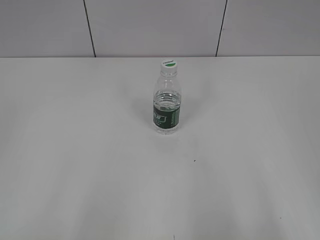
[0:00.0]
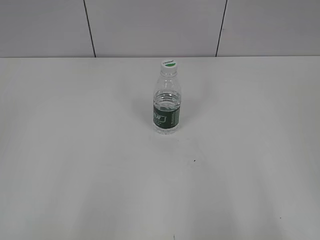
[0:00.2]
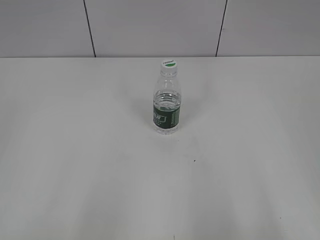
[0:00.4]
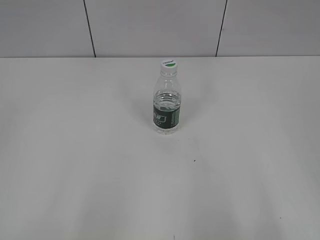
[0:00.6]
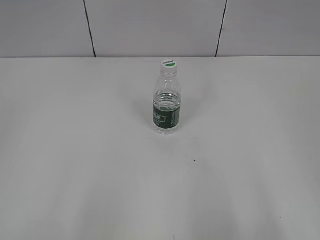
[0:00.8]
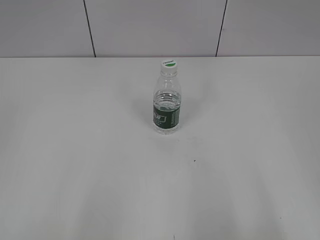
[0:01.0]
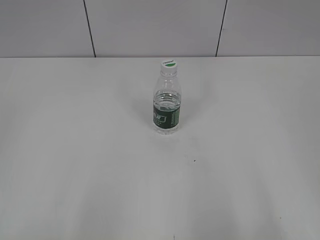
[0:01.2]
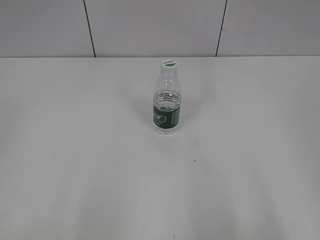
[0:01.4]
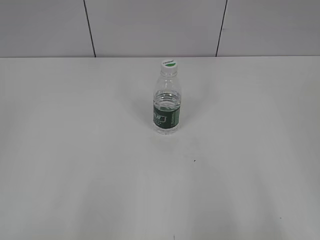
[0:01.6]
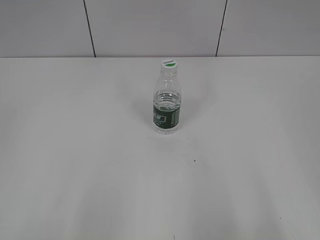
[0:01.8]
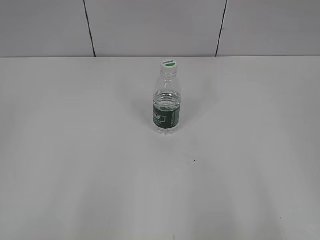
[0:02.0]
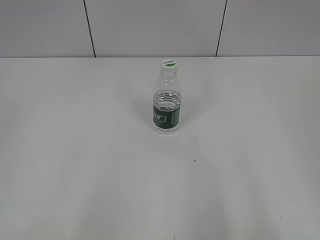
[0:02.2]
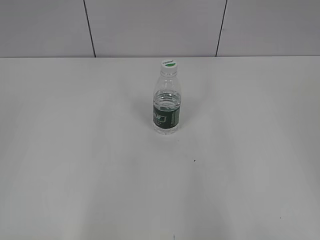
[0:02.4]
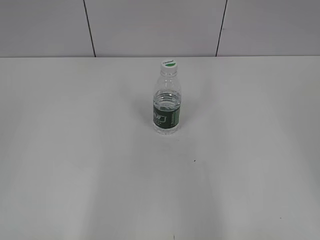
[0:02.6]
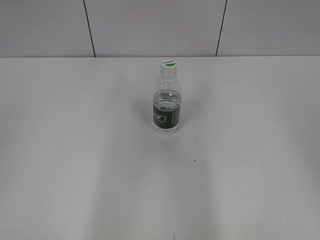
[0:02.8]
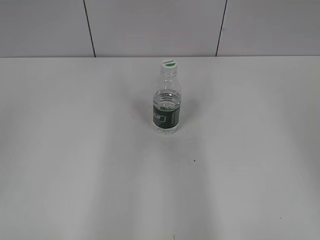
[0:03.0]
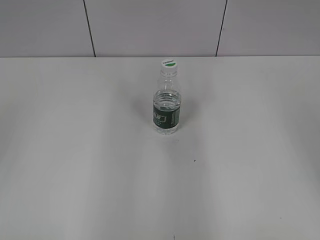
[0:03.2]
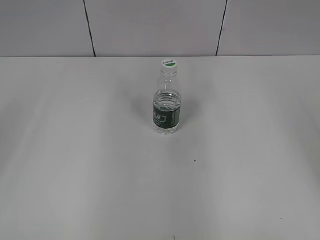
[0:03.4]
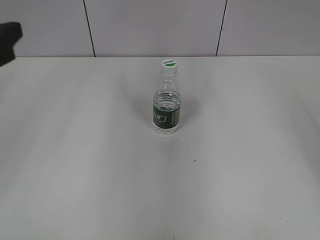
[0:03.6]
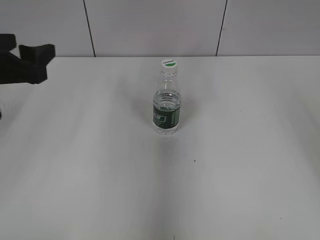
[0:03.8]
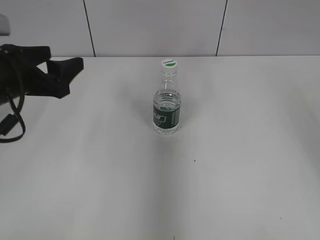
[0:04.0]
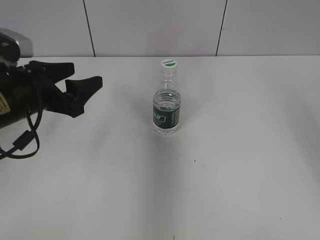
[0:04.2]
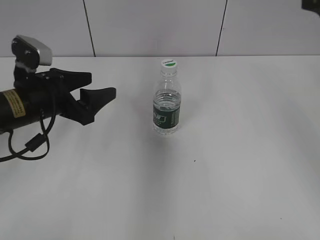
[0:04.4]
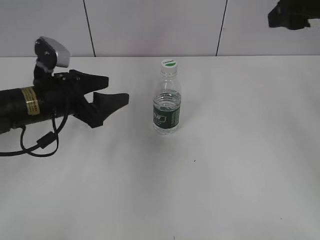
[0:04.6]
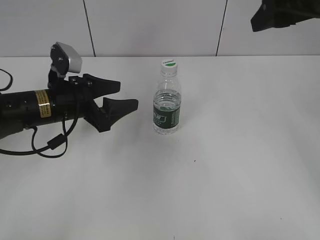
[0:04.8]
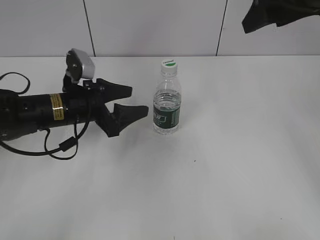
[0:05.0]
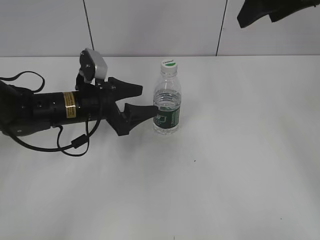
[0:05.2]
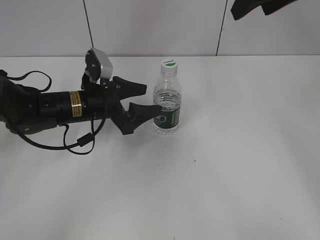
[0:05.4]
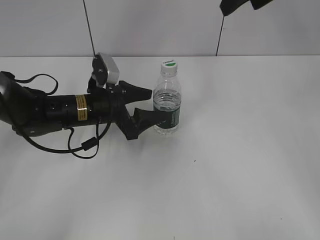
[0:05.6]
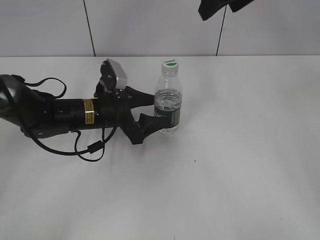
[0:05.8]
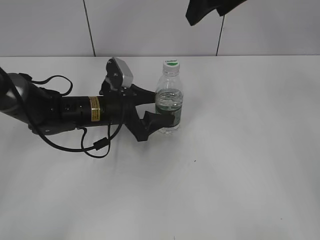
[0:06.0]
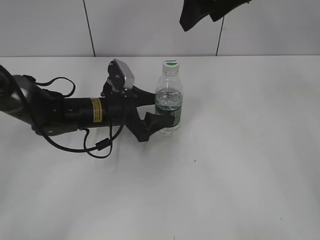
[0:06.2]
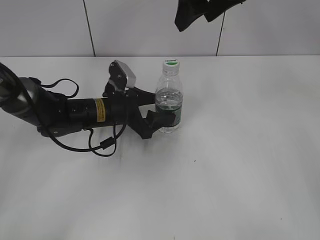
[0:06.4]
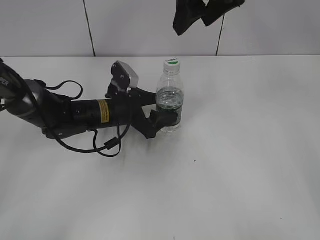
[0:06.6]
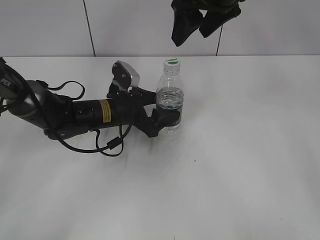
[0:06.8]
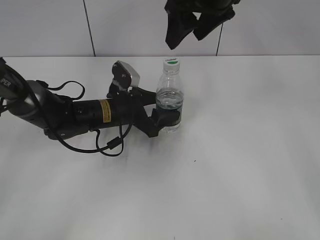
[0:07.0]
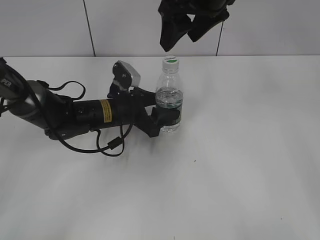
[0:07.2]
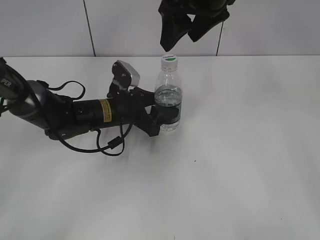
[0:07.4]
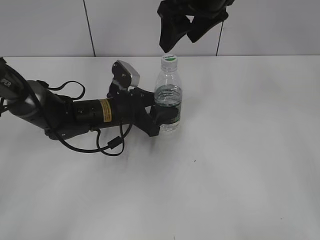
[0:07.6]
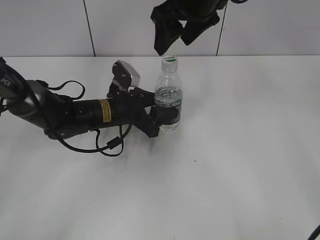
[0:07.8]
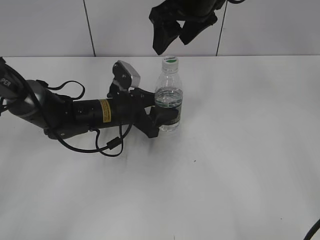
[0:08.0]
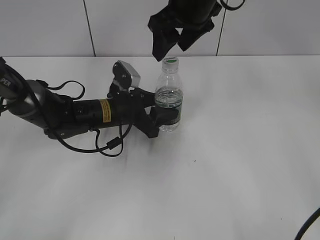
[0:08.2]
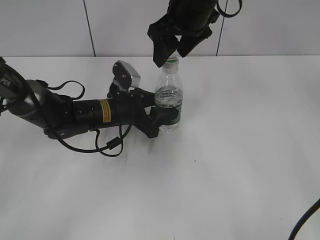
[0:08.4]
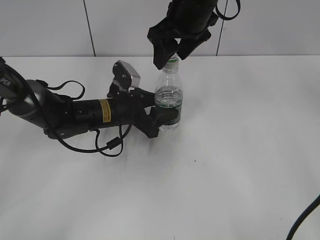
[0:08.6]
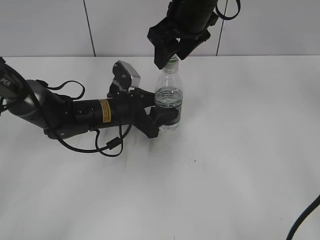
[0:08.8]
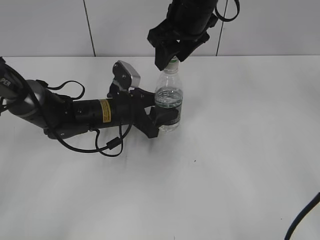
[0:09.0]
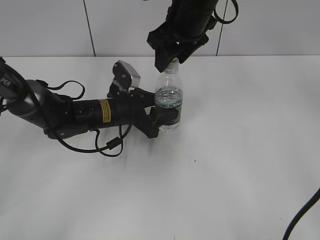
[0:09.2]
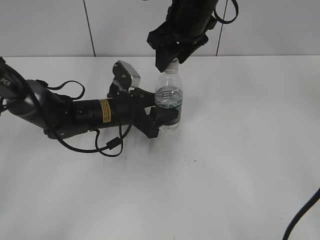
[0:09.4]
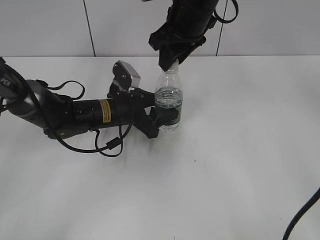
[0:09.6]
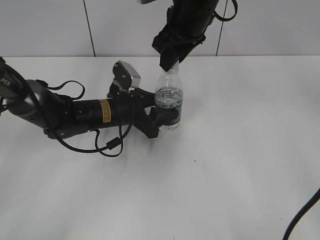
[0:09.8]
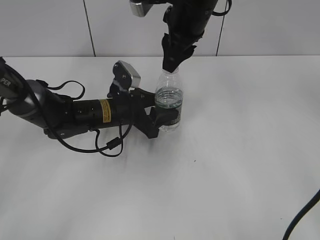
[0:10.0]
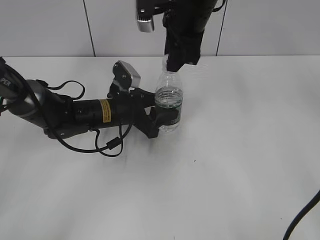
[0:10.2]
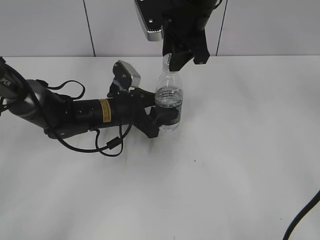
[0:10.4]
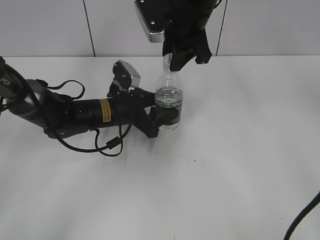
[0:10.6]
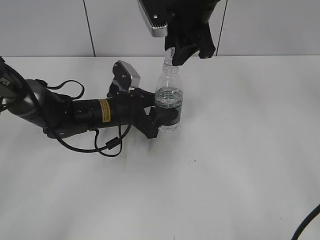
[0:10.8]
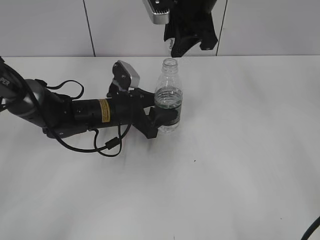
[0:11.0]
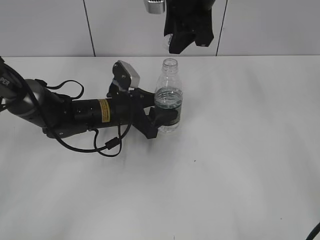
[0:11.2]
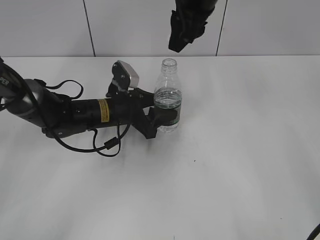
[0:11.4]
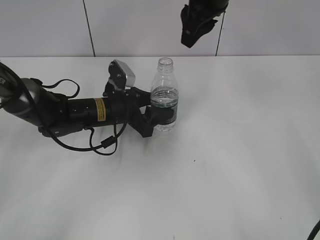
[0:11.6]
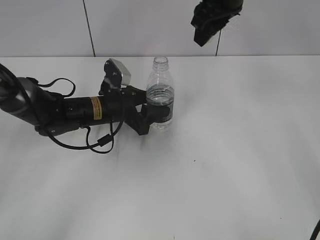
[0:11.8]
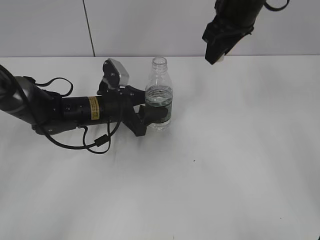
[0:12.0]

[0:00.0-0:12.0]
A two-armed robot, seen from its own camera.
Step, 0:00.0 to 0:06.4: Grasp the bottle and move it to the center of the table with the left gripper.
Step, 0:06.6 to 0:10.8: Unscrew the bottle cap with the right gripper while holding the bottle with the left gripper.
0:03.0 to 0:04.4: The left gripper moves downward, forward and to the right, about 25 cm. The right gripper heads forward, covering roughly 15 cm.
0:04.4 to 0:06.0: The left gripper moves to the right, downward and forward, roughly 15 cm; the right gripper travels to the left and forward by approximately 15 cm.
0:06.0 to 0:07.6: The left gripper closes its fingers; the right gripper ends up about 5 cm from where it was.
0:07.6 to 0:09.0: The right gripper changes place by some 5 cm, and closes up.
0:09.0 to 0:10.4: The right gripper closes its fingers.
0:10.4 to 0:12.0: The right gripper heads to the right, covering approximately 5 cm.

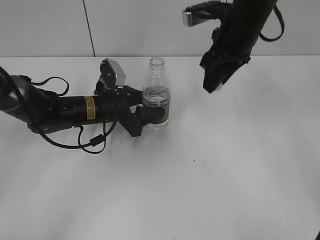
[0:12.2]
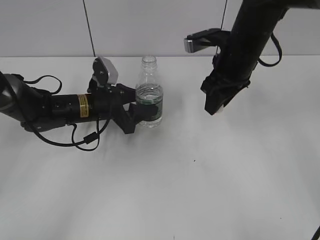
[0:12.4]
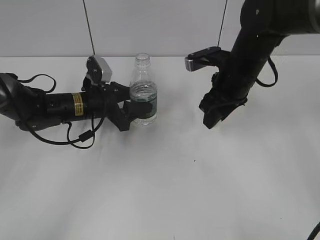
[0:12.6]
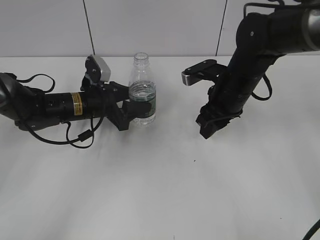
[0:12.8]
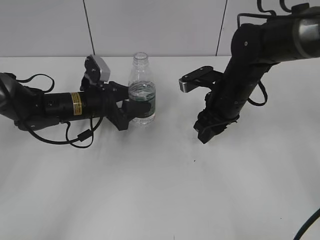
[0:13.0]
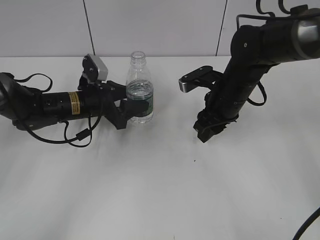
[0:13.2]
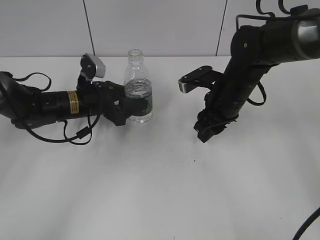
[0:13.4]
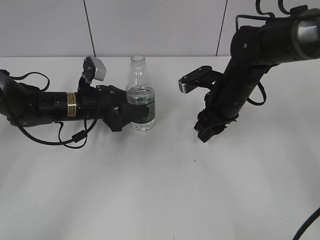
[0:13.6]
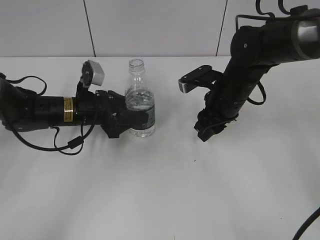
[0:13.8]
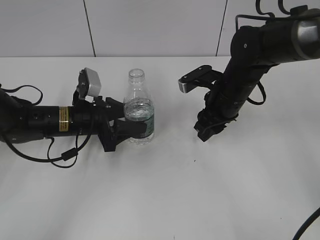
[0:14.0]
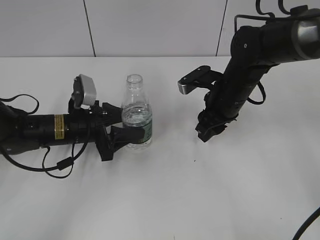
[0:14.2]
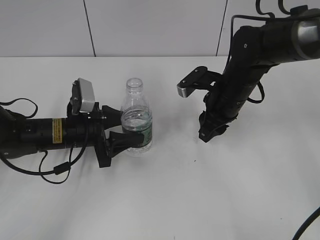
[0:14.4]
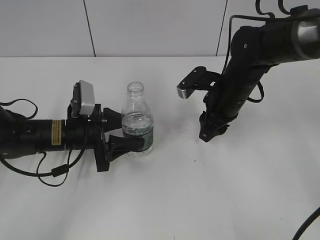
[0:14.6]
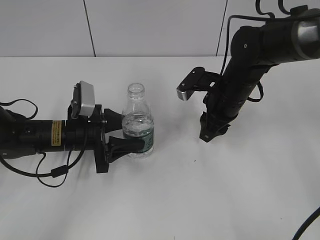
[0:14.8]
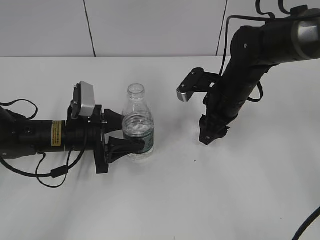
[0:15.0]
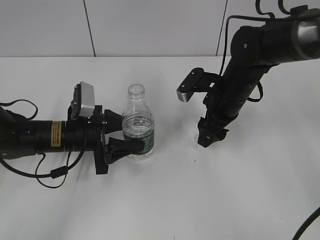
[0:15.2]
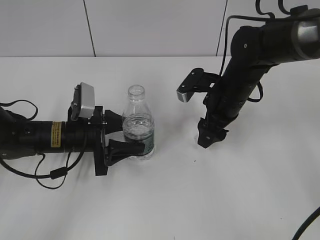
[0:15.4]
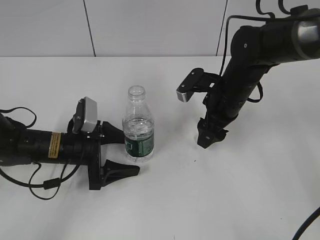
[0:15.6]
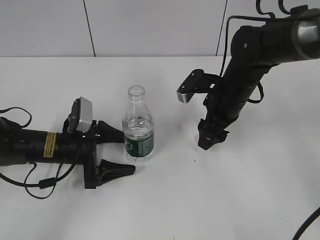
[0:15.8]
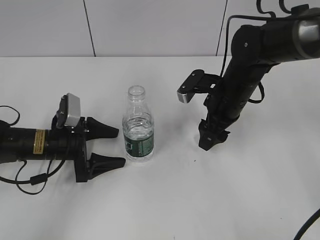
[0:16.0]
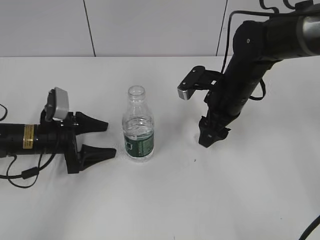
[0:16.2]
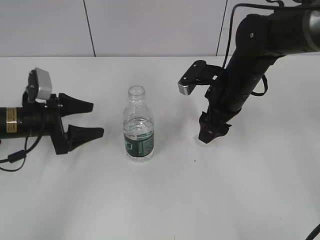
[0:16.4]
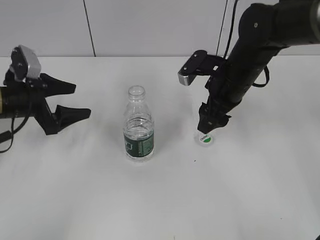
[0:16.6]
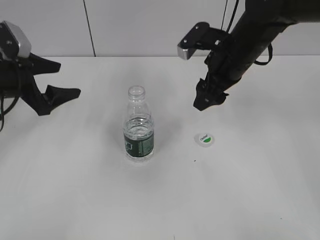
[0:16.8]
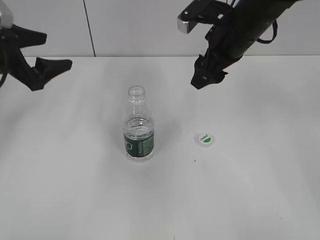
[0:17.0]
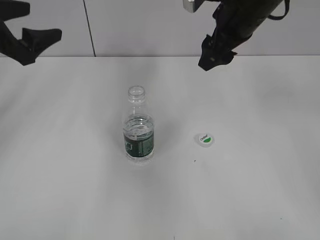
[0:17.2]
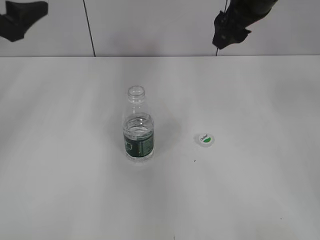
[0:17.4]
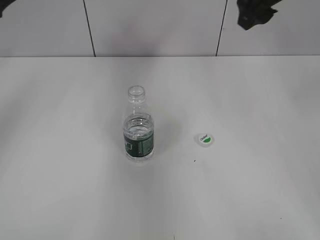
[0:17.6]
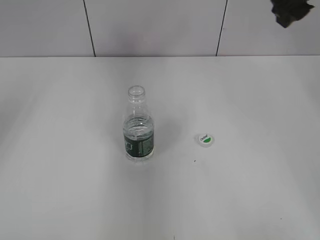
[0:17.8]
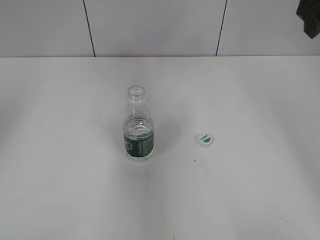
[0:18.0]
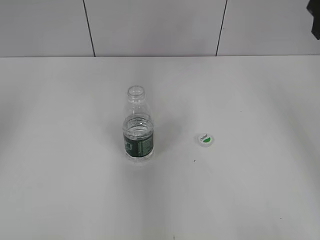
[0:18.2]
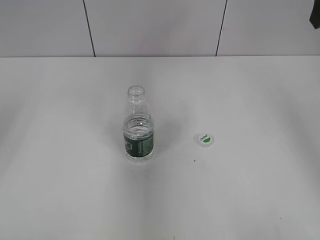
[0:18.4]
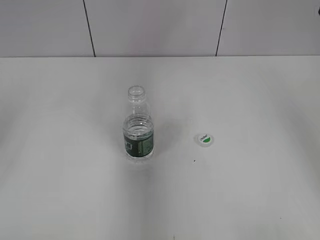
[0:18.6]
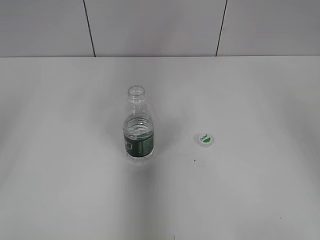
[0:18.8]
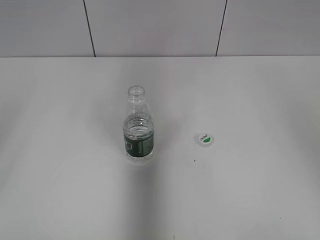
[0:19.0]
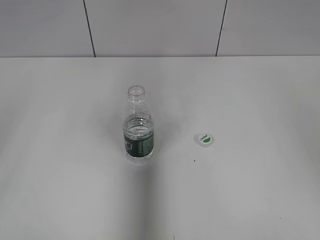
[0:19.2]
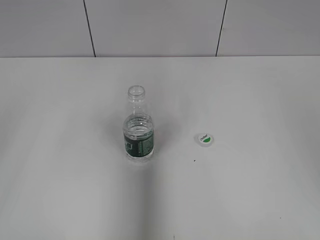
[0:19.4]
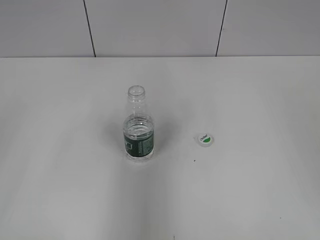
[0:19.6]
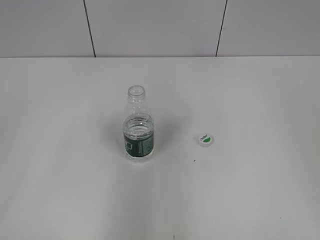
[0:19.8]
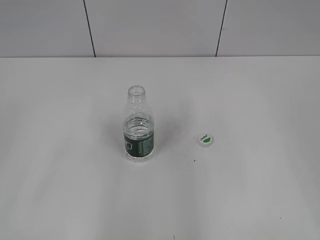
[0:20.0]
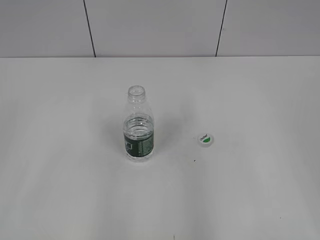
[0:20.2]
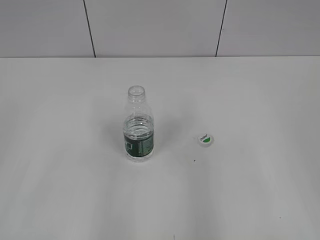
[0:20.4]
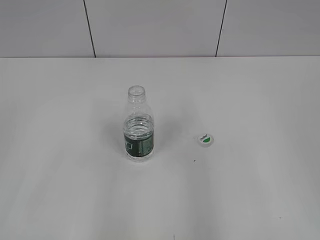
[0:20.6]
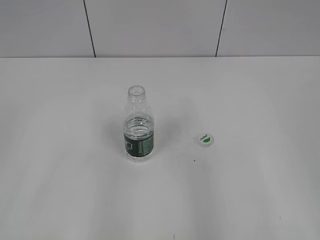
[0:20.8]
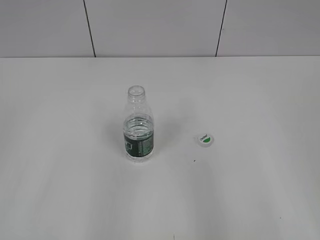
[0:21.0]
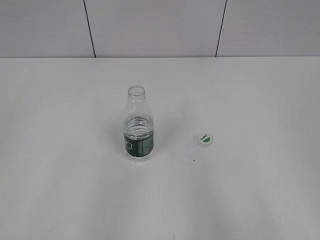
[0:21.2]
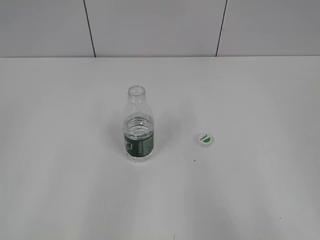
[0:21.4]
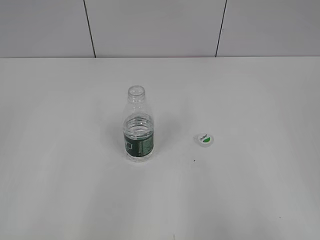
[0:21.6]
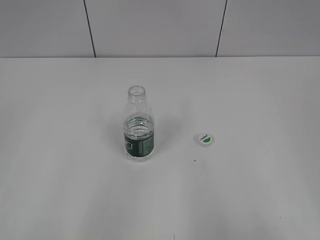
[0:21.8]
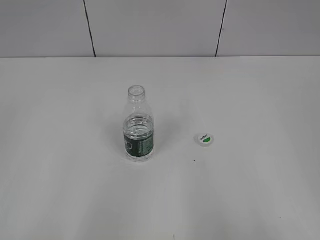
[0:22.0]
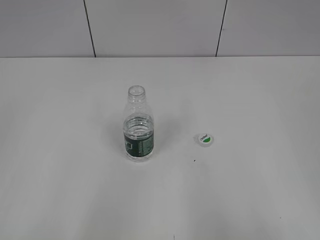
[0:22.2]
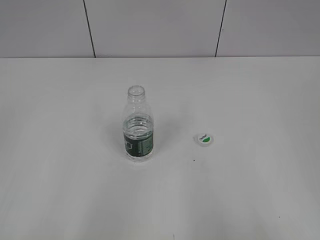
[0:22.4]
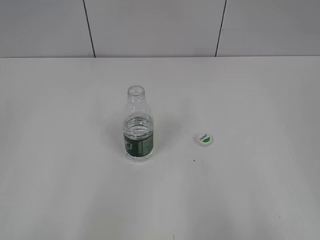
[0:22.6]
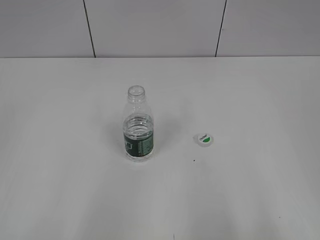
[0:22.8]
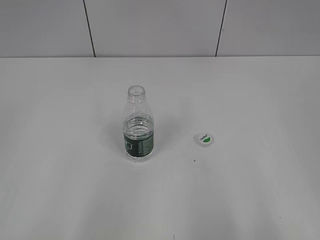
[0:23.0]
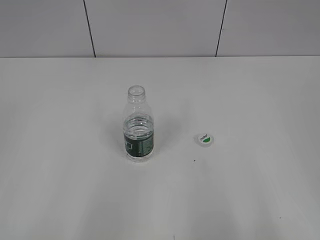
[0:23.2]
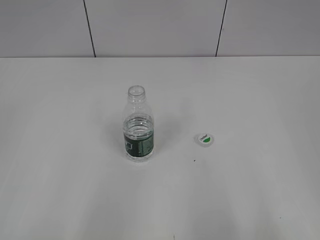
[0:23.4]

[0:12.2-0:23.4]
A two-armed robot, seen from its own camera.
Step, 0:12.2 to 0:15.2: Place the bottle cap on the table with the right gripper.
Step, 0:15.4 to 0:16.0: Place the bottle on the table with the left gripper.
0:12.2 to 0:13.8: The right gripper travels downward by about 10 cm.
0:13.8 to 0:15.4: The left gripper heads backward, covering approximately 5 cm; the right gripper opens.
0:15.4 to 0:17.0: The left gripper is displaced upward and to the left by about 20 cm, and opens, while the right gripper is displaced upward by approximately 10 cm.
0:17.0 to 0:18.6: The left gripper goes some 15 cm backward, upward and to the left, while the right gripper heads upward and to the right, covering roughly 20 cm.
0:18.6 to 0:20.2: The right gripper travels backward and downward by approximately 25 cm, while the left gripper heads backward, covering approximately 15 cm.
